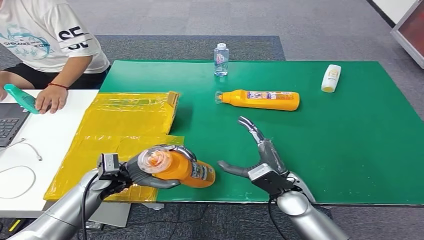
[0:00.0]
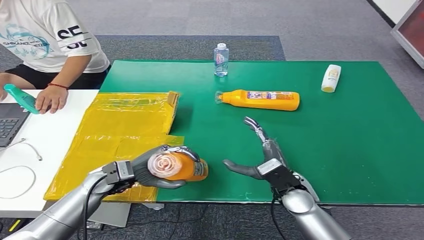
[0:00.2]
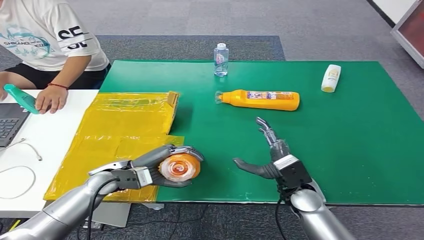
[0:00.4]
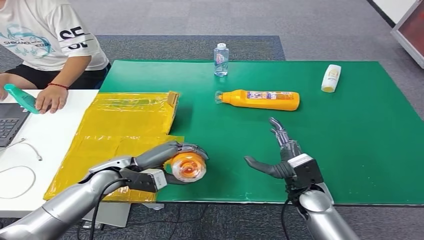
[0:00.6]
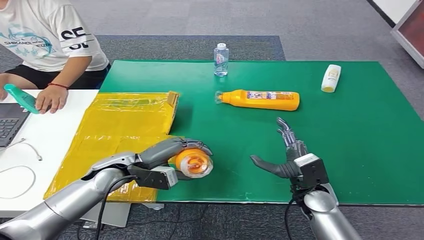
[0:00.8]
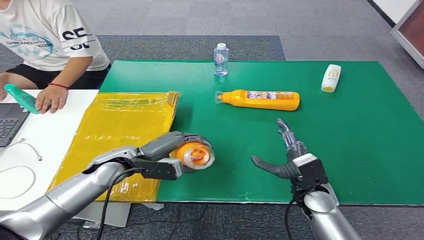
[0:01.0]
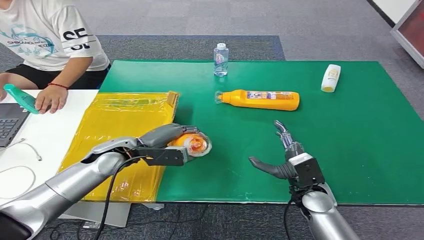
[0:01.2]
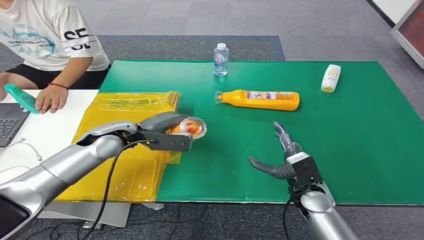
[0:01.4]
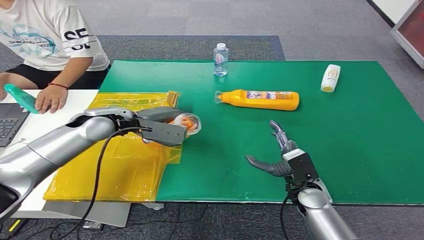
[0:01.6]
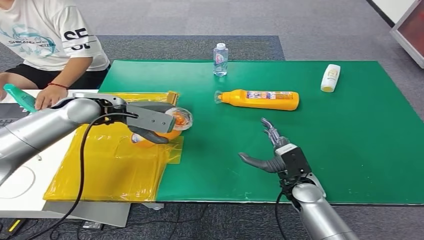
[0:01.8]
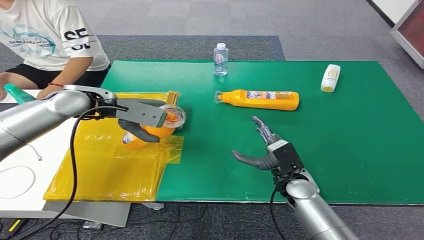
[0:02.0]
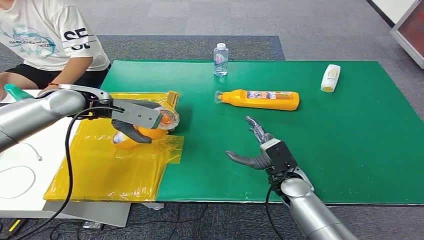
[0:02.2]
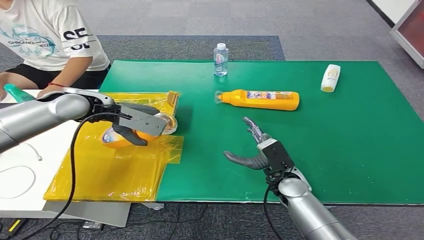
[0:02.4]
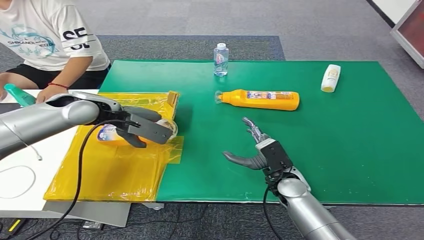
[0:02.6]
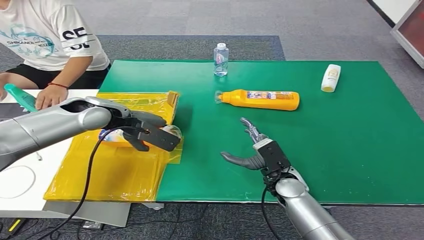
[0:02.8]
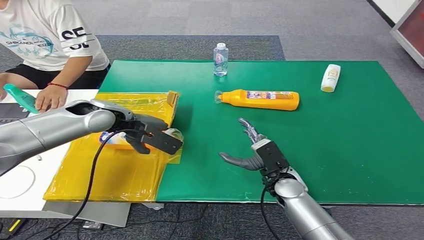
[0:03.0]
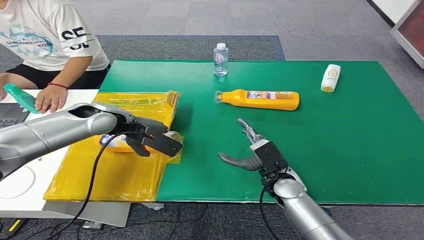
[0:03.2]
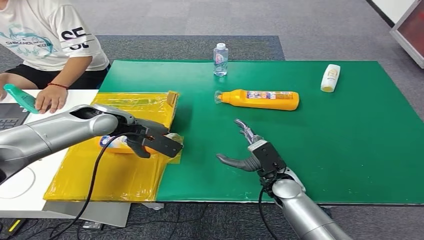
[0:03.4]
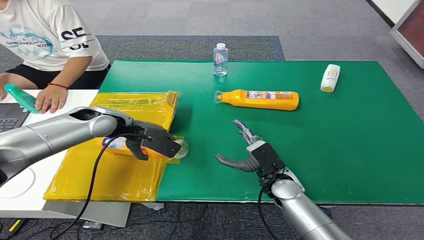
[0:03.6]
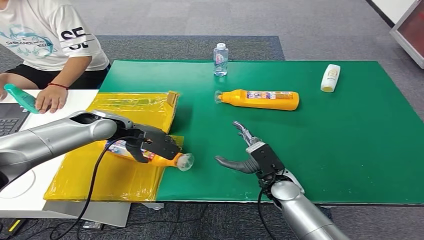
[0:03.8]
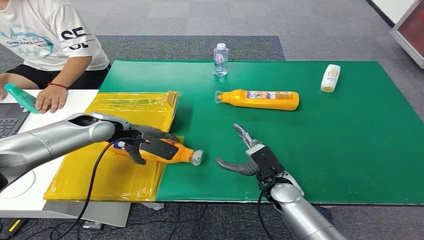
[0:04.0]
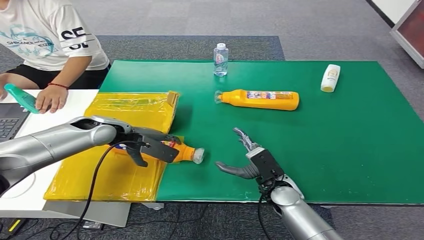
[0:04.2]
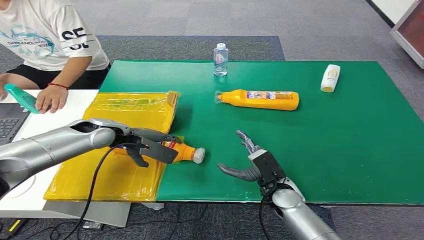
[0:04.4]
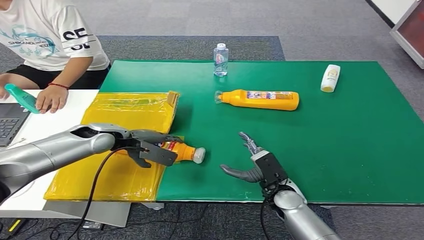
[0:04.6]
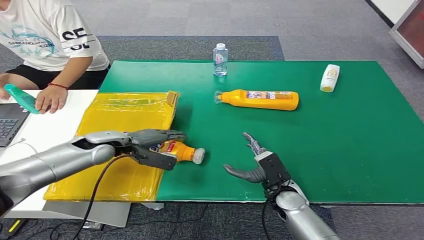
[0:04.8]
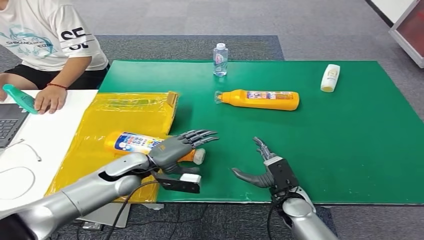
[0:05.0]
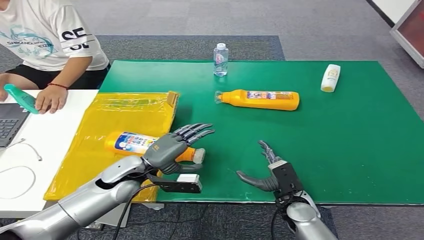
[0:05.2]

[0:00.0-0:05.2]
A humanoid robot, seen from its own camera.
Step, 0:00.0 to 0:05.2: Turn the bottle to the front side.
0:01.8 to 0:03.4: The left hand is displaced downward by roughly 5 cm.
0:03.4 to 0:05.2: The left hand moves backward, downward and to the right, roughly 15 cm, while the right hand goes roughly 5 cm backward.

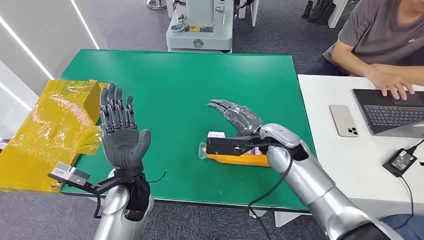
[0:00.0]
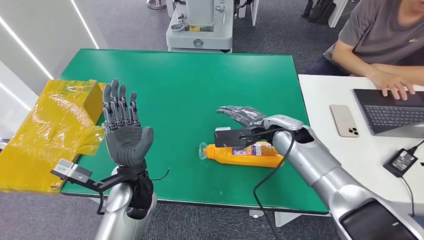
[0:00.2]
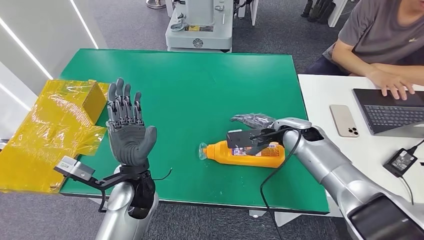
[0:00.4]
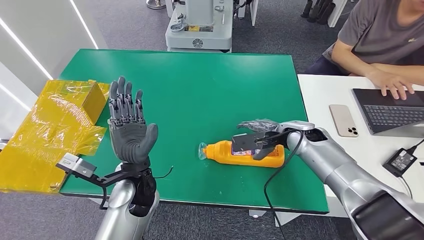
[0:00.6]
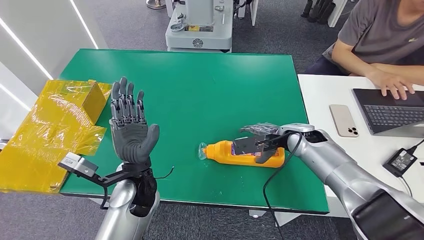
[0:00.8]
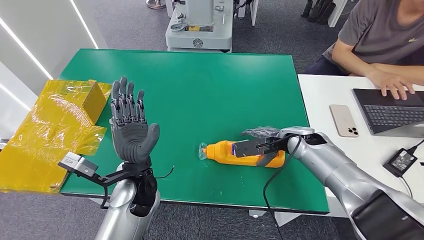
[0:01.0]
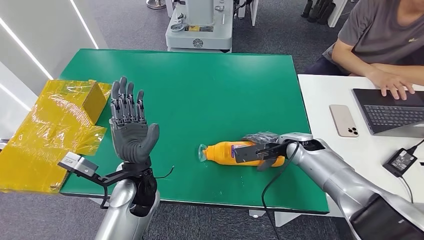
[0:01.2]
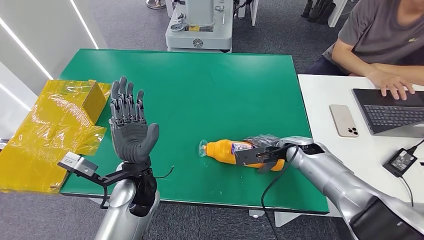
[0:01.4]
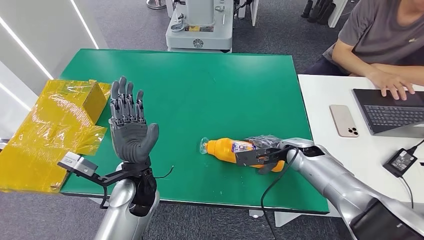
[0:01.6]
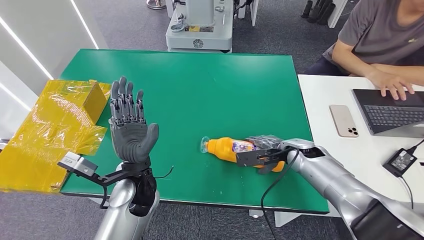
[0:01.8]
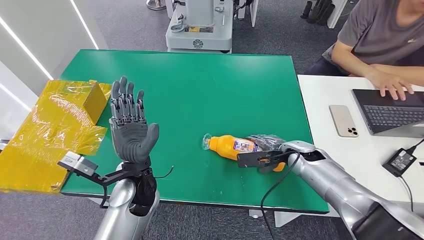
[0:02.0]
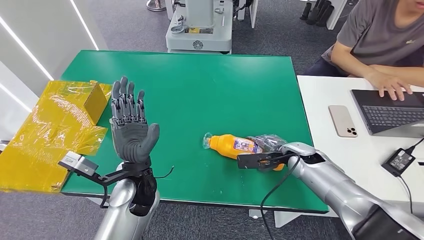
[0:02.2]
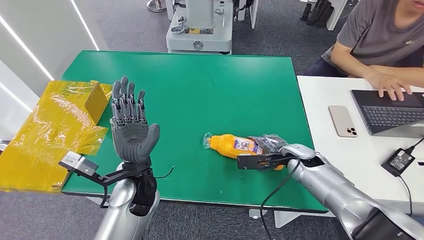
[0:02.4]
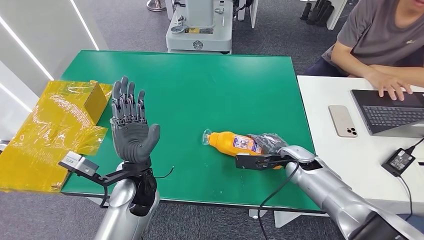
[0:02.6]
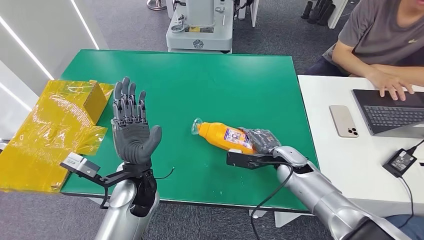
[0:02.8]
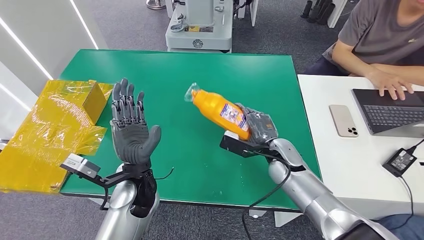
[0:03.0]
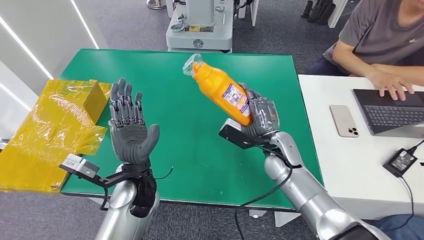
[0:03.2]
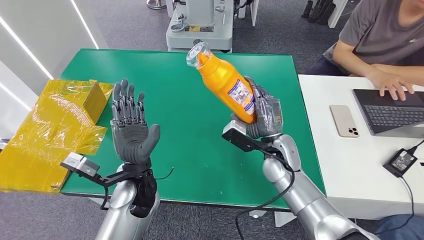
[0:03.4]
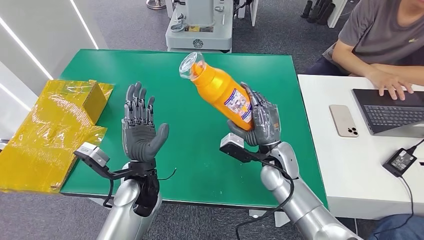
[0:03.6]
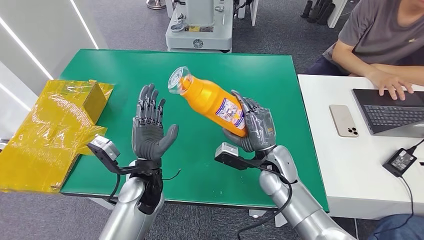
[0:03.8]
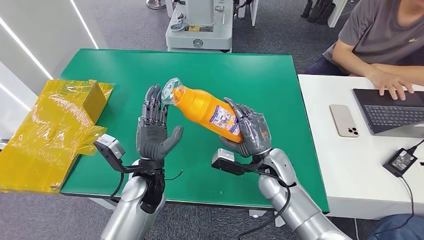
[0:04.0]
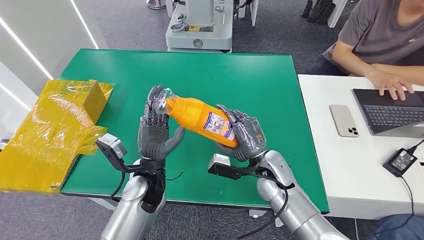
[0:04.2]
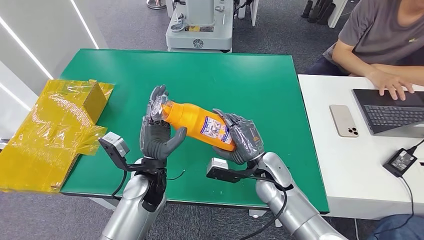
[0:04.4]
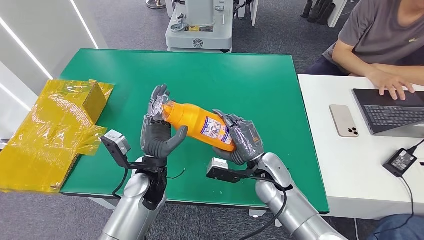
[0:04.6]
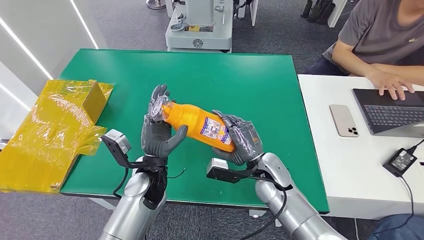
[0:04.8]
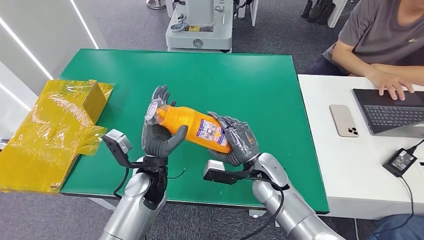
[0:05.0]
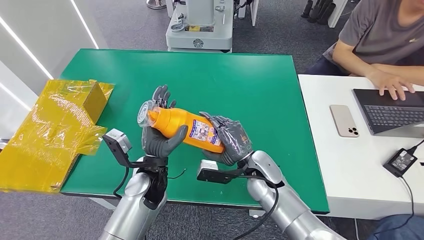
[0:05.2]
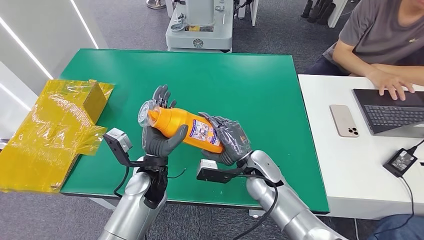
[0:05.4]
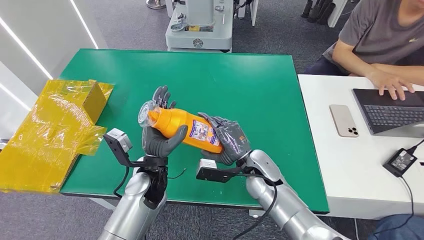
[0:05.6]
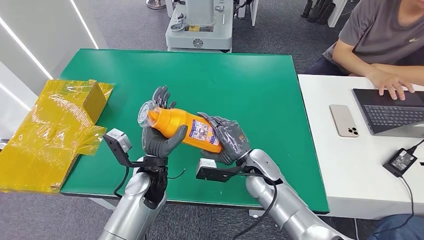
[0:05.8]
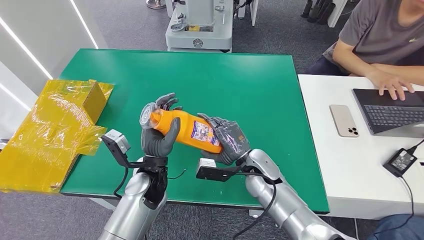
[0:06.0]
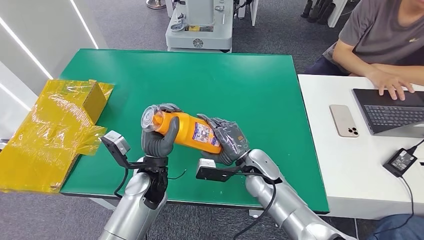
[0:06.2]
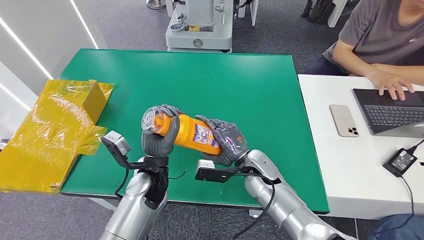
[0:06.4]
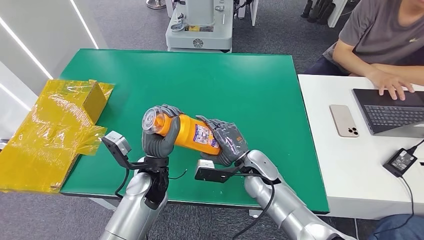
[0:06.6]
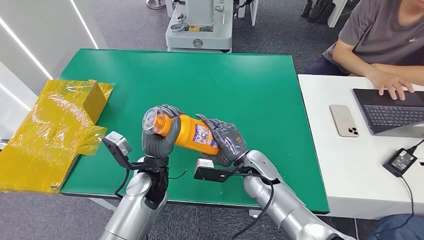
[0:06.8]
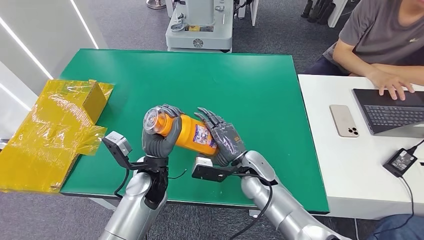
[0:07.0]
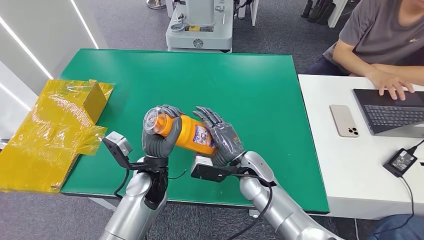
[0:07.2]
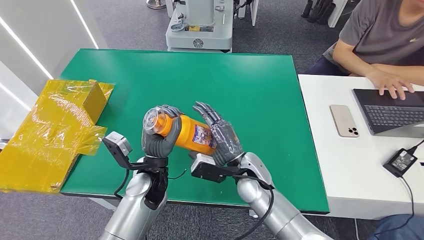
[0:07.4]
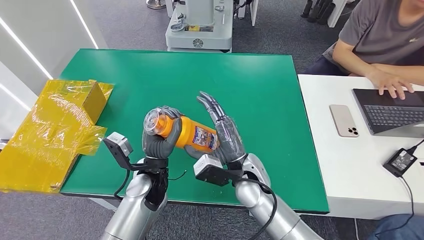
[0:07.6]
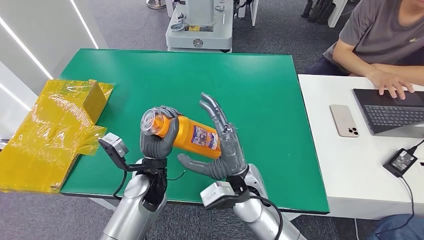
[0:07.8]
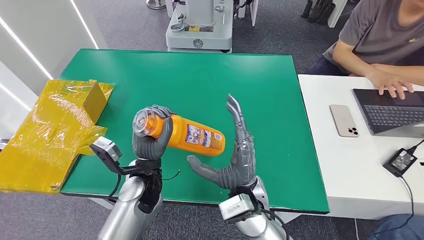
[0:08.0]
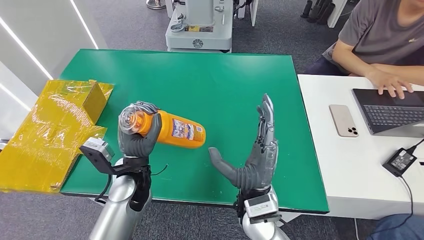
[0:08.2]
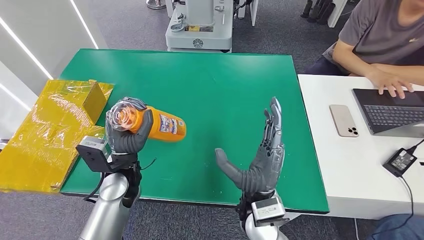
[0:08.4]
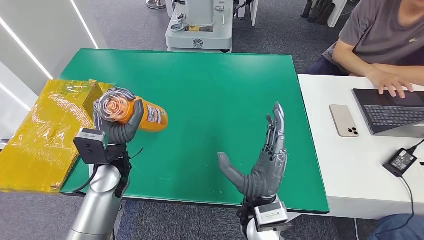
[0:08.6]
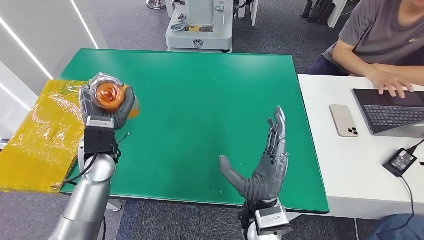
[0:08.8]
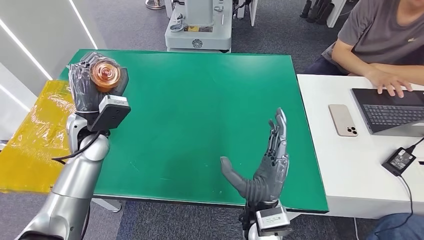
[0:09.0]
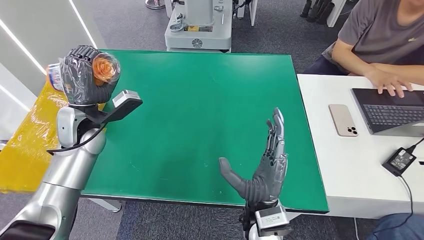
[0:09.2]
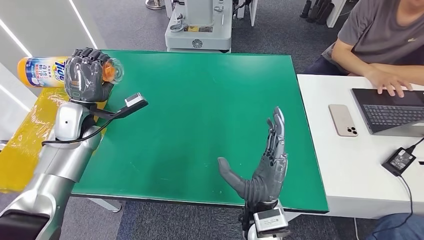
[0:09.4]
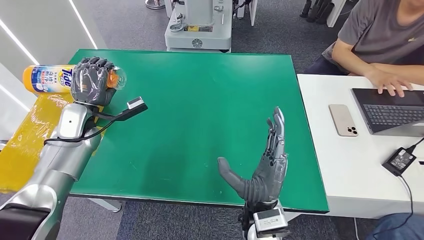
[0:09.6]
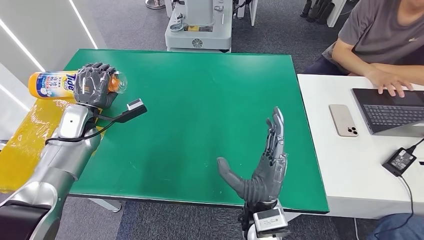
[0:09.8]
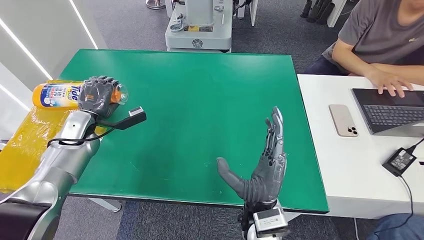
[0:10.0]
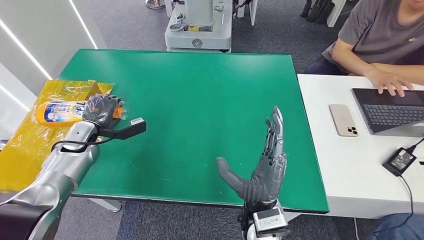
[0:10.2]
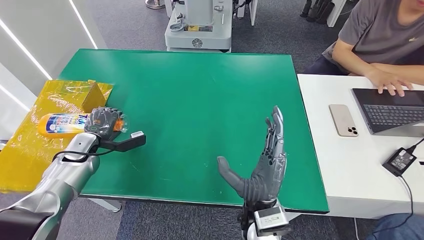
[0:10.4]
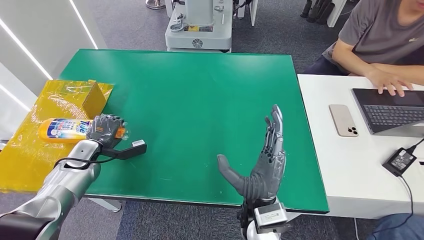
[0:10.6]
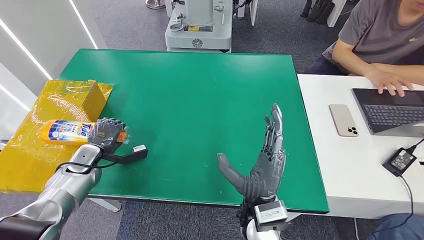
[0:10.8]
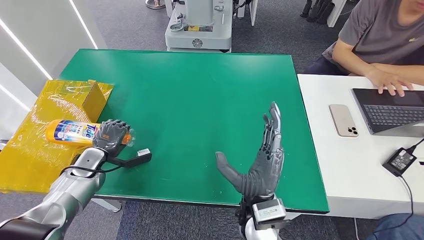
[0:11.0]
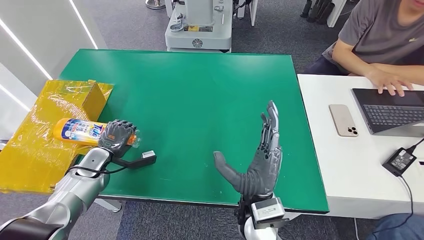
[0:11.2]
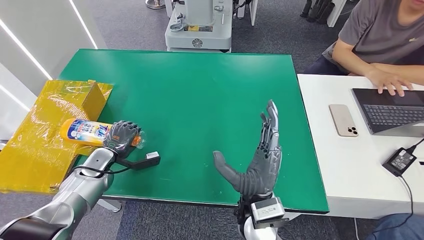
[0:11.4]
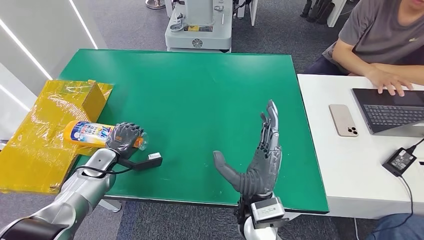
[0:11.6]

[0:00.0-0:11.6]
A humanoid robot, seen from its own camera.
Step, 0:00.0 to 0:04.4: Pick up the bottle from the table.
0:01.4 to 0:02.8: The right hand shifts by approximately 5 cm.
0:02.8 to 0:04.4: The right hand is displaced to the left by some 10 cm.
0:04.4 to 0:07.2: The hands stay close to where they were, moving slightly.
0:07.2 to 0:08.8: The left hand shifts approximately 15 cm to the left and upward. The right hand moves backward, approximately 10 cm.
0:08.8 to 0:10.2: The left hand is displaced to the left, forward and downward by about 15 cm.
0:10.2 to 0:11.6: The left hand travels downward and backward by about 10 cm.
